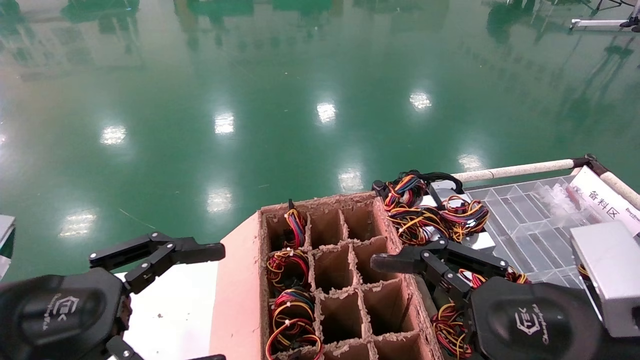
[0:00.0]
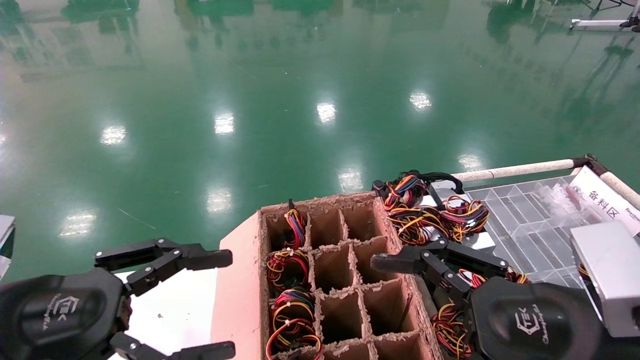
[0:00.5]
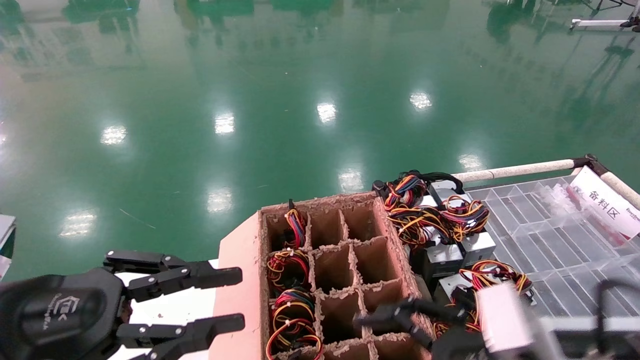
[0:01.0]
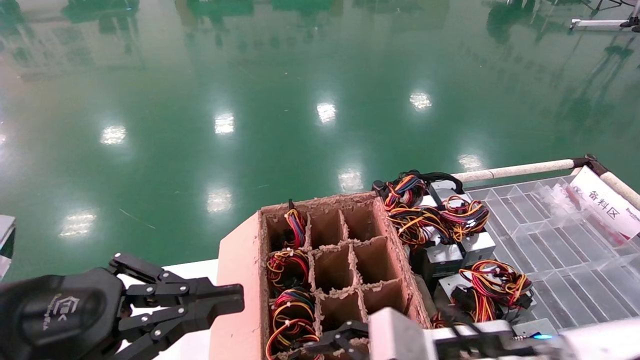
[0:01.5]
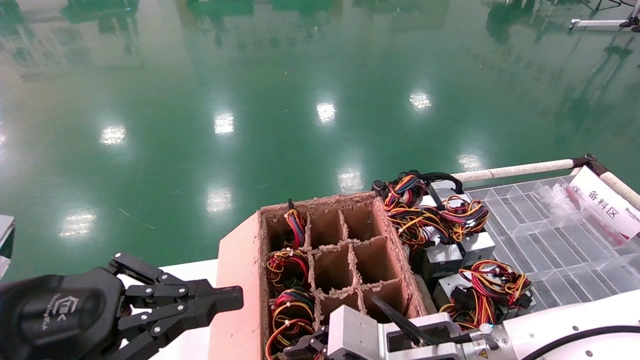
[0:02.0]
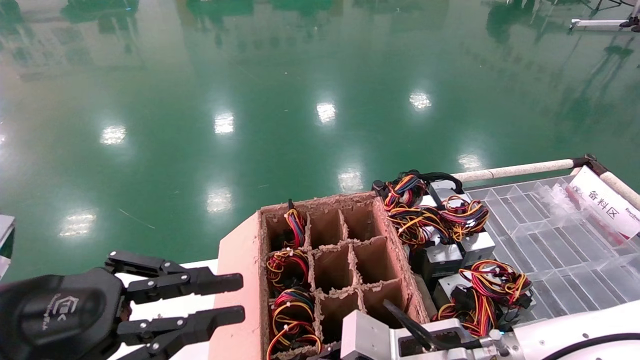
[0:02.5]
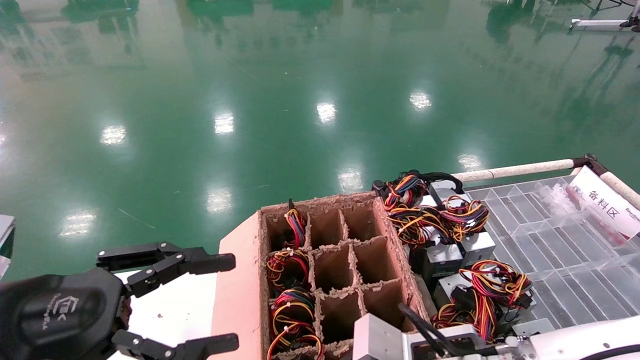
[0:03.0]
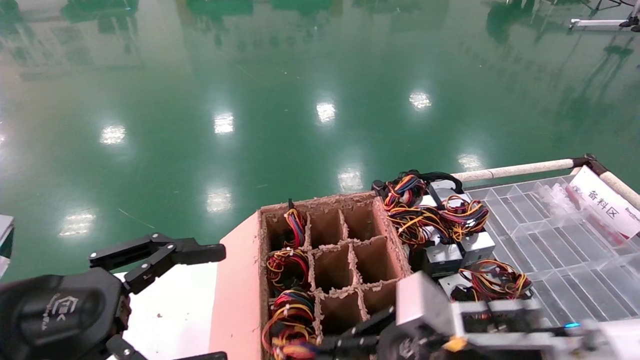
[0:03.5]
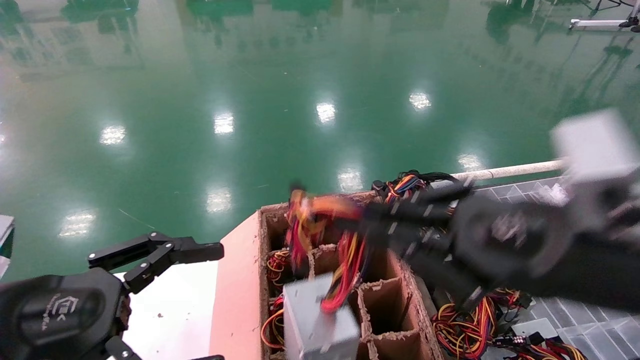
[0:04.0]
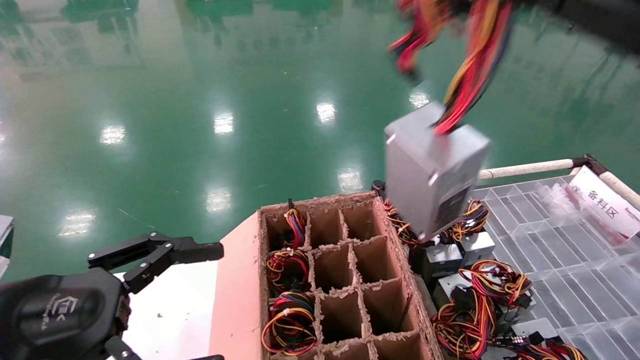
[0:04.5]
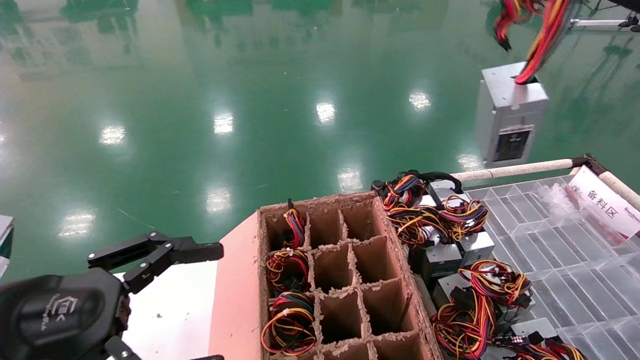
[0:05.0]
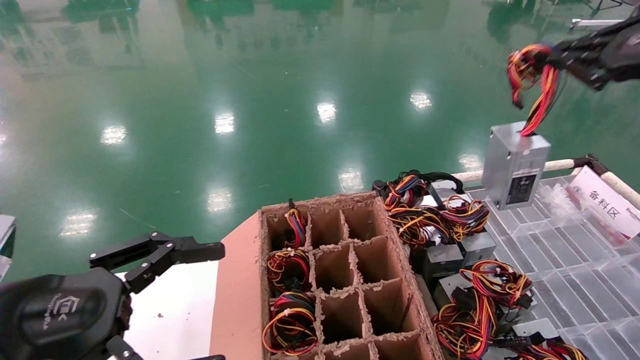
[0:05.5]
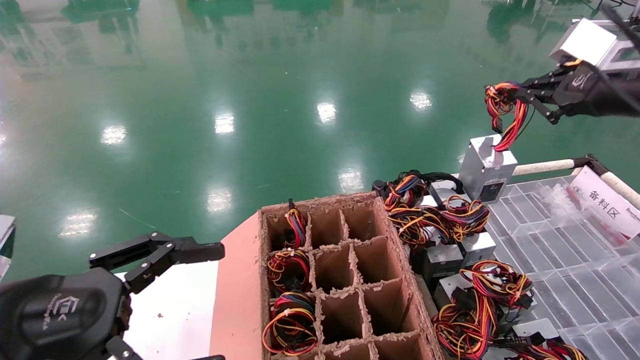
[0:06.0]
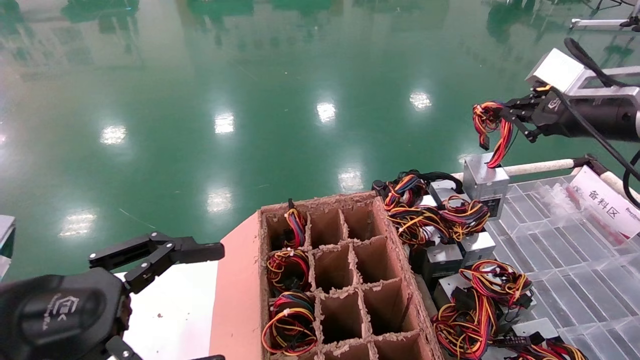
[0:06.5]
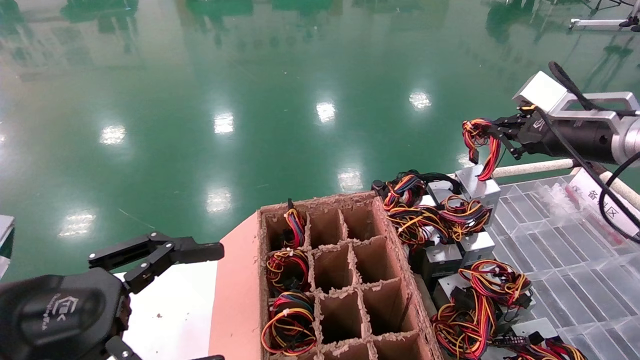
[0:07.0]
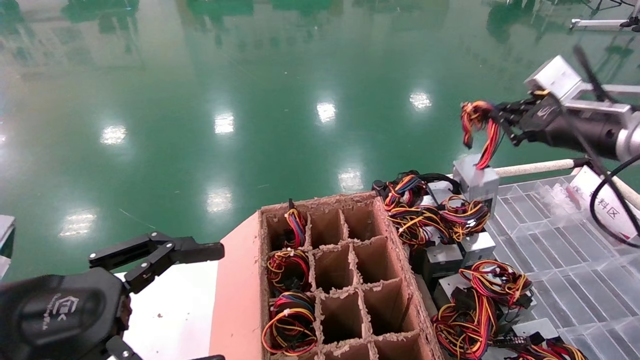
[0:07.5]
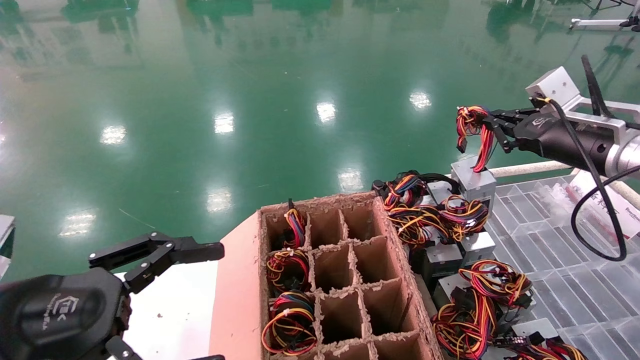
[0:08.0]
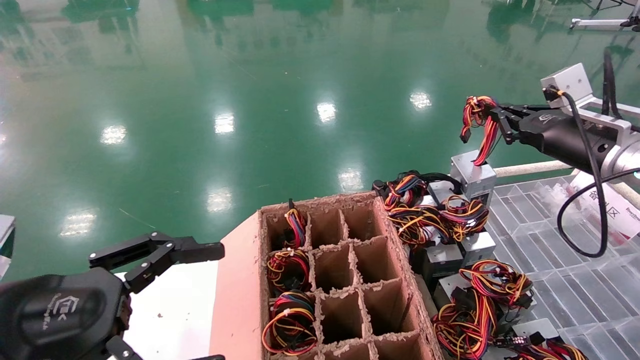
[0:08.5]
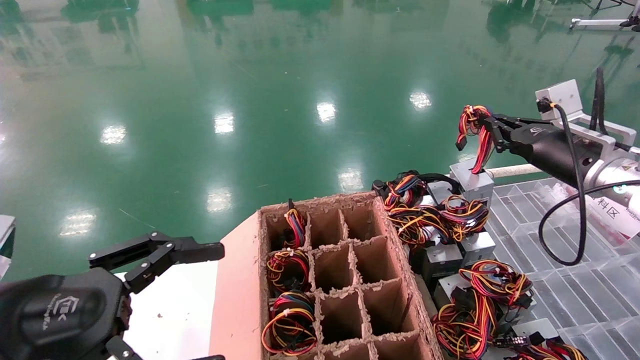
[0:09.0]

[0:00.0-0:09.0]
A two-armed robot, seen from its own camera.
Step, 0:02.0 to 0:03.0: Grab and lift the power supply from the large box.
0:00.0 to 0:02.0: The left gripper closes its fingers. Meanwhile the right gripper goes roughly 20 cm to the left, downward and forward.
0:02.0 to 0:04.5: The right gripper is displaced upward and to the right by some 35 cm, and closes its fingers, while the left gripper opens its fingers.
0:04.5 to 0:07.0: The right gripper moves forward, some 20 cm.
0:07.0 to 0:09.0: The right gripper goes approximately 5 cm downward.

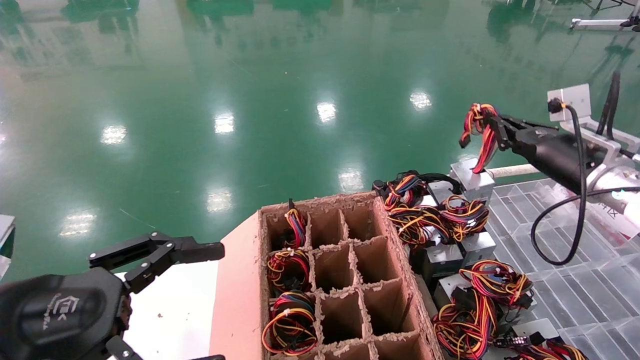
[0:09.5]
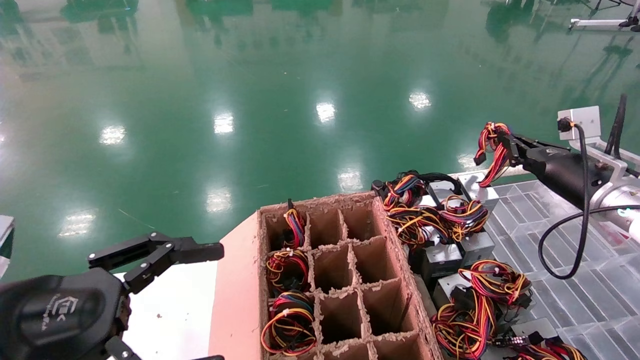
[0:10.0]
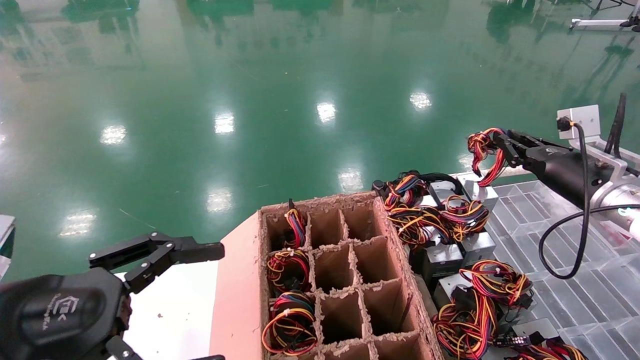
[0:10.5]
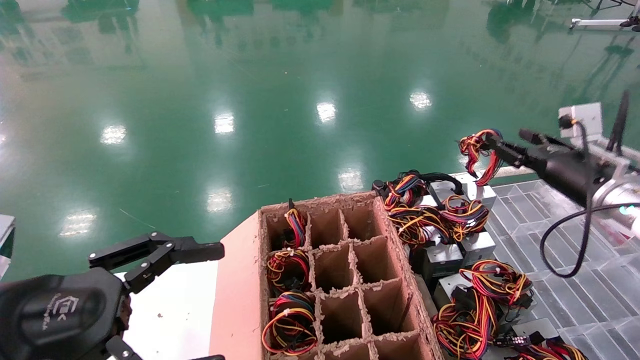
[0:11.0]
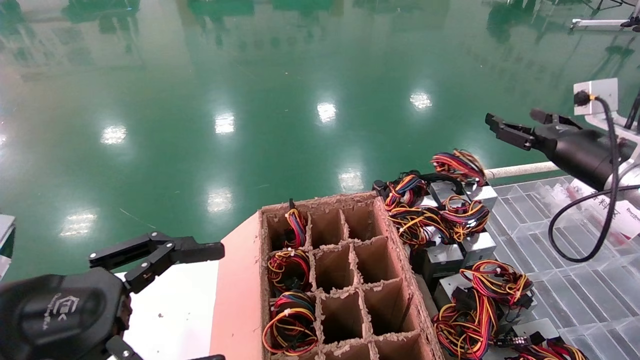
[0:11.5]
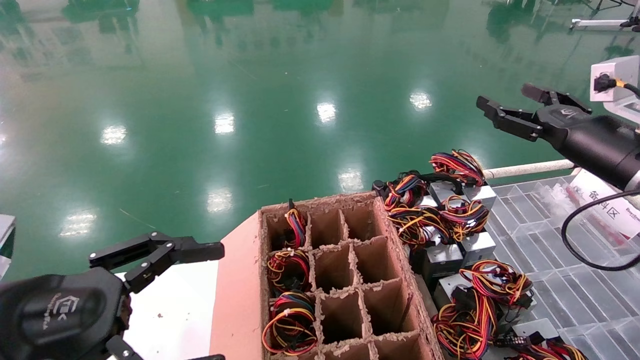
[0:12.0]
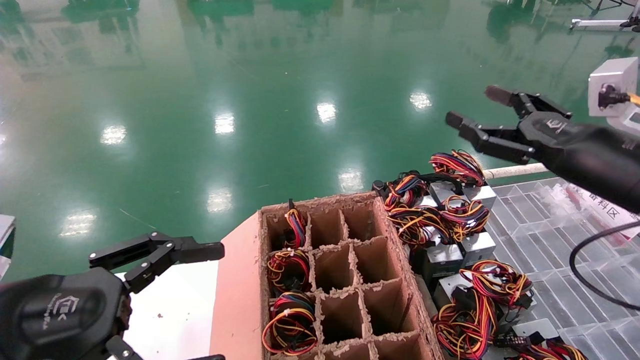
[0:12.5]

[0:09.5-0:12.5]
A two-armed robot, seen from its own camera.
0:09.5 to 0:11.0: The right gripper opens its fingers.
0:11.0 to 0:12.5: The right gripper travels backward and to the left by approximately 10 cm, and opens.
